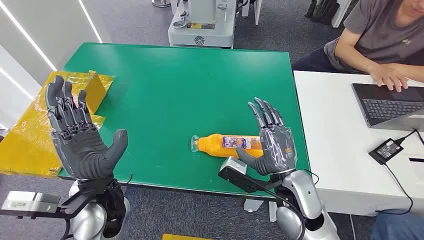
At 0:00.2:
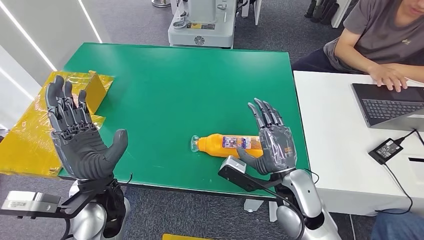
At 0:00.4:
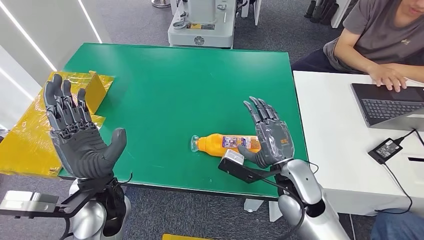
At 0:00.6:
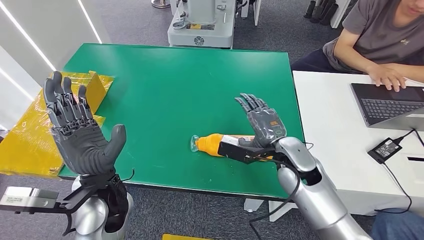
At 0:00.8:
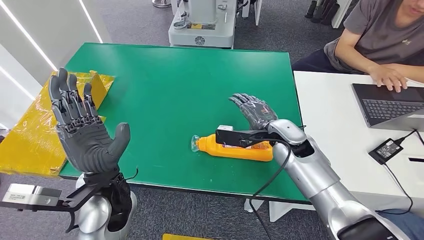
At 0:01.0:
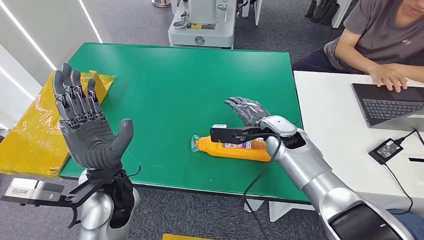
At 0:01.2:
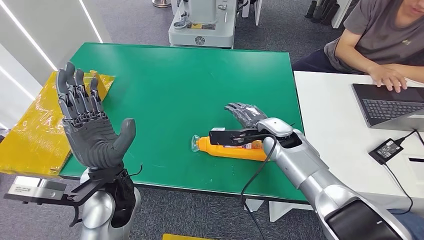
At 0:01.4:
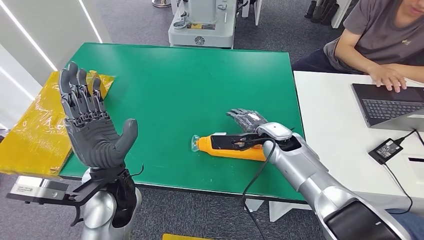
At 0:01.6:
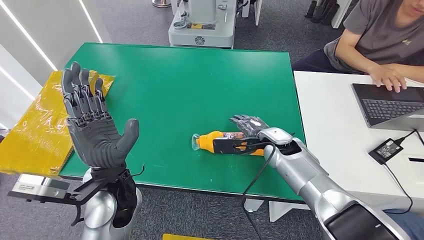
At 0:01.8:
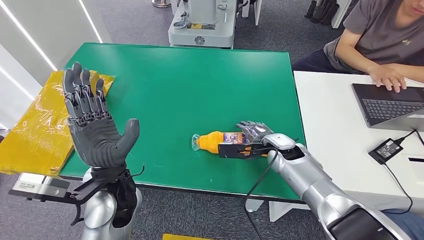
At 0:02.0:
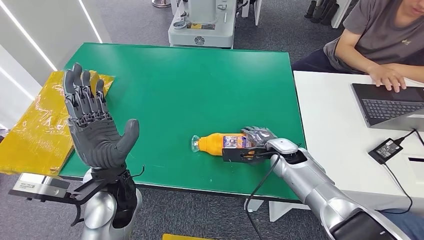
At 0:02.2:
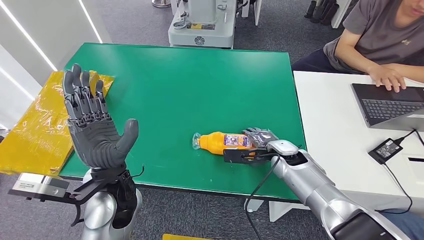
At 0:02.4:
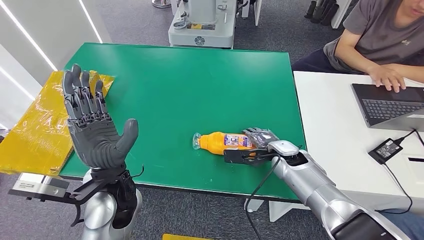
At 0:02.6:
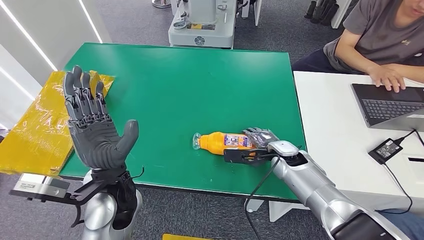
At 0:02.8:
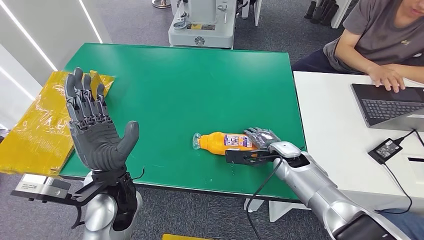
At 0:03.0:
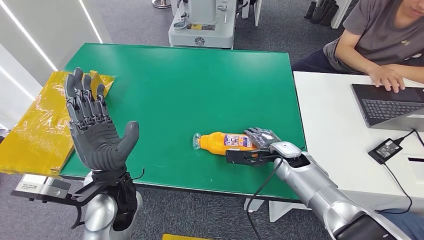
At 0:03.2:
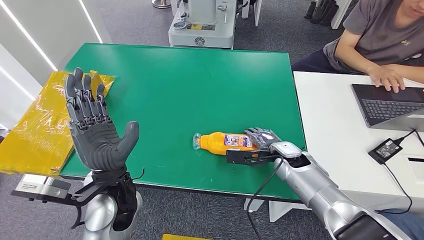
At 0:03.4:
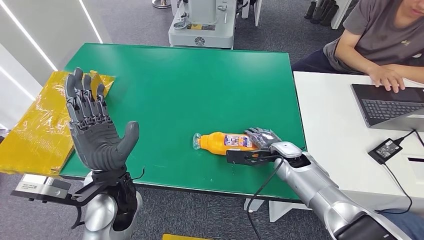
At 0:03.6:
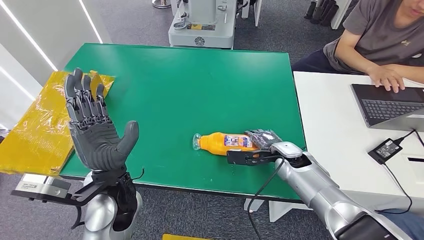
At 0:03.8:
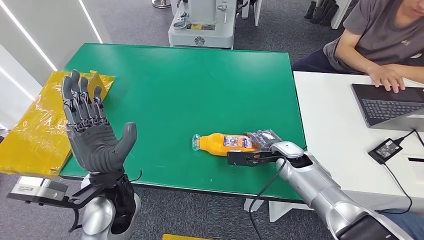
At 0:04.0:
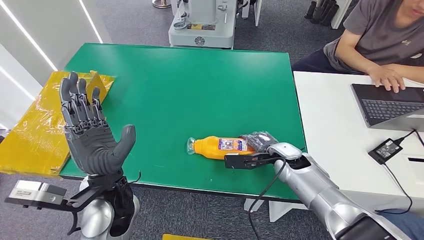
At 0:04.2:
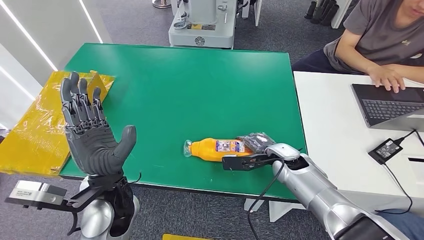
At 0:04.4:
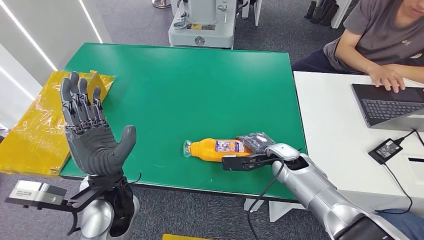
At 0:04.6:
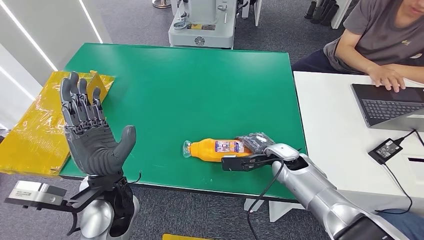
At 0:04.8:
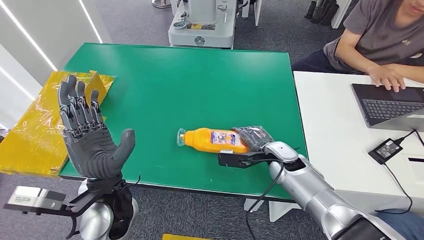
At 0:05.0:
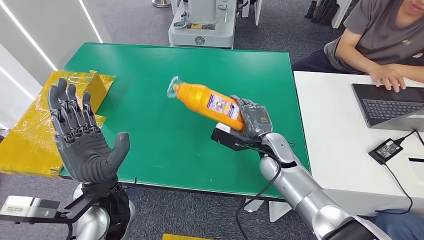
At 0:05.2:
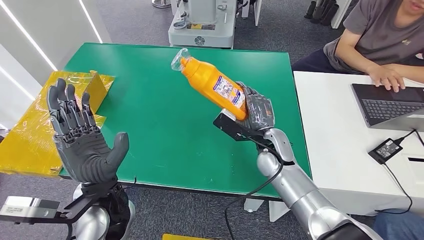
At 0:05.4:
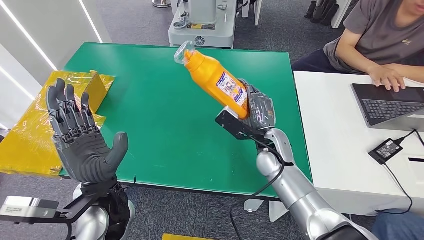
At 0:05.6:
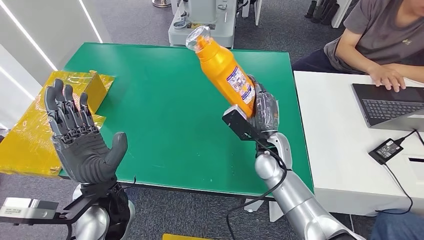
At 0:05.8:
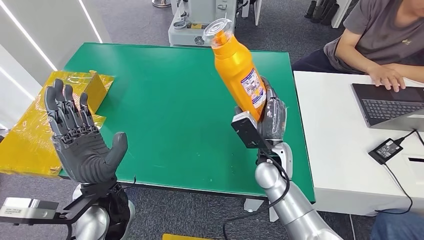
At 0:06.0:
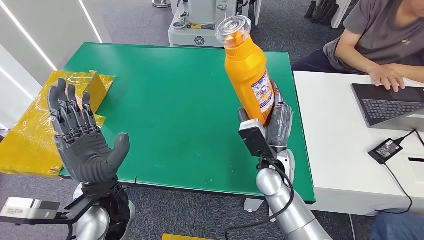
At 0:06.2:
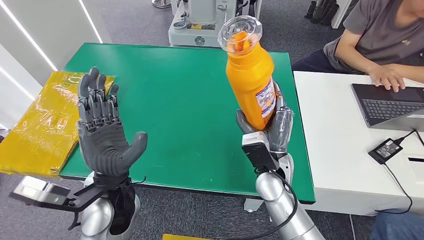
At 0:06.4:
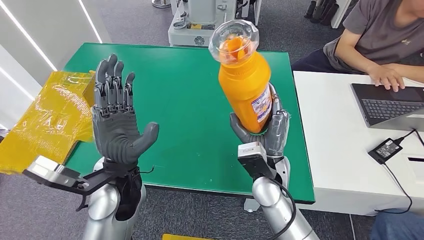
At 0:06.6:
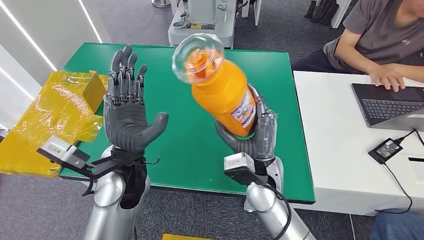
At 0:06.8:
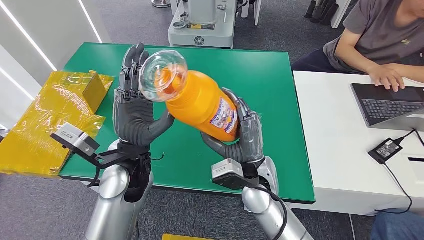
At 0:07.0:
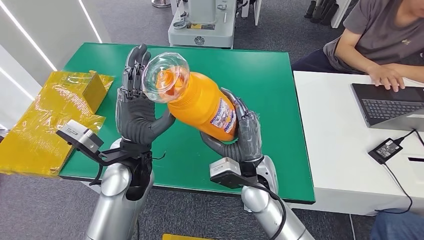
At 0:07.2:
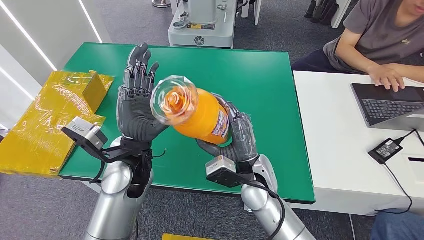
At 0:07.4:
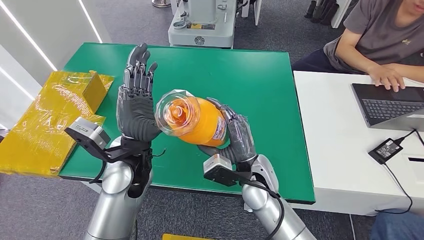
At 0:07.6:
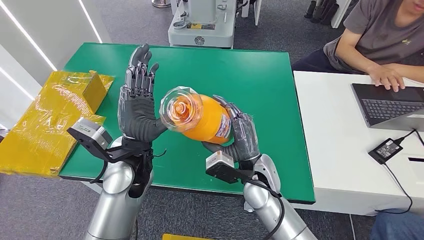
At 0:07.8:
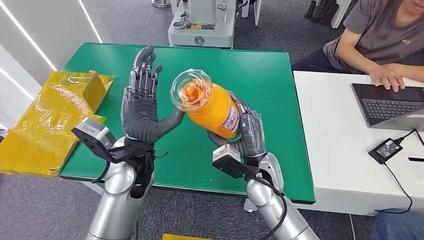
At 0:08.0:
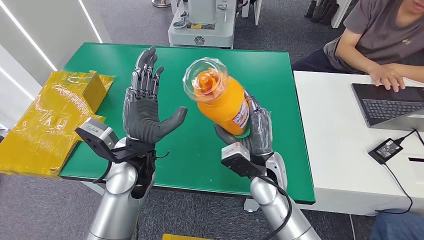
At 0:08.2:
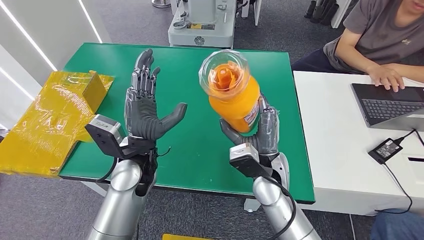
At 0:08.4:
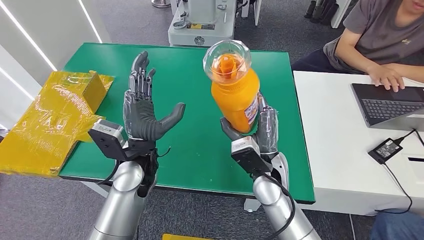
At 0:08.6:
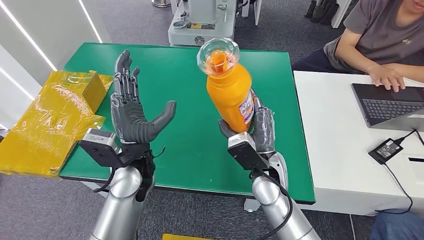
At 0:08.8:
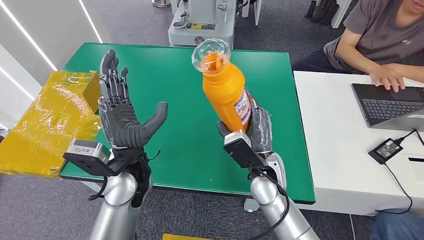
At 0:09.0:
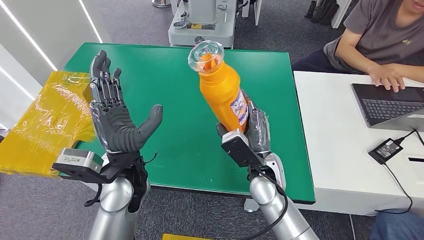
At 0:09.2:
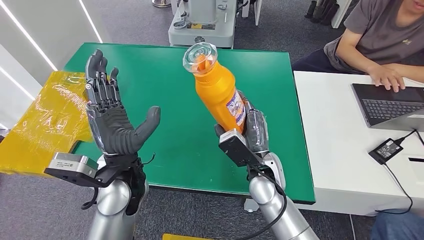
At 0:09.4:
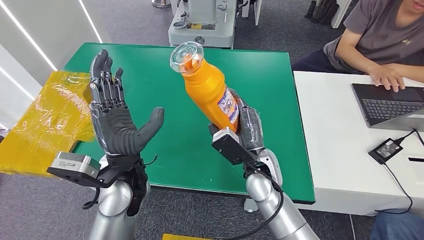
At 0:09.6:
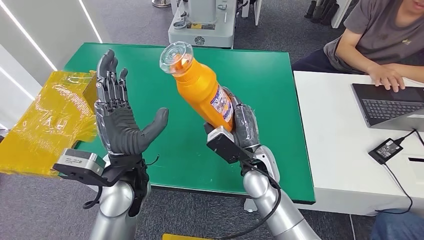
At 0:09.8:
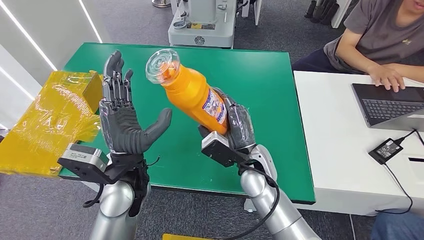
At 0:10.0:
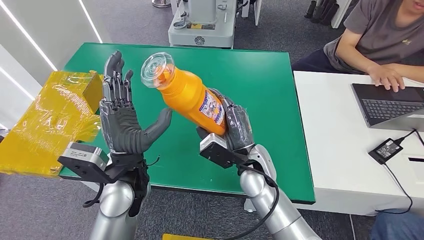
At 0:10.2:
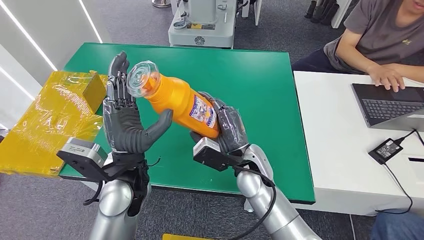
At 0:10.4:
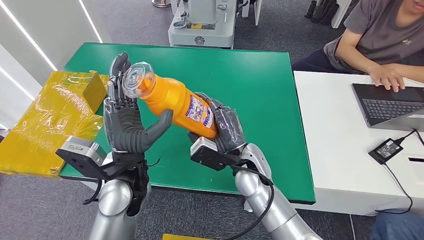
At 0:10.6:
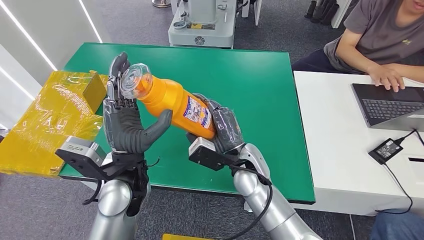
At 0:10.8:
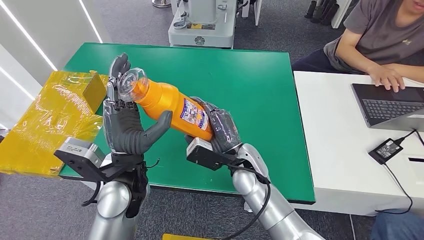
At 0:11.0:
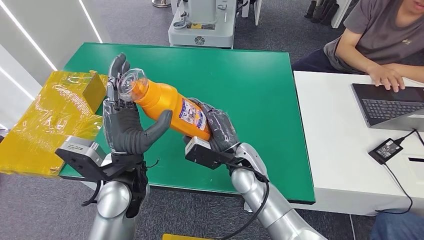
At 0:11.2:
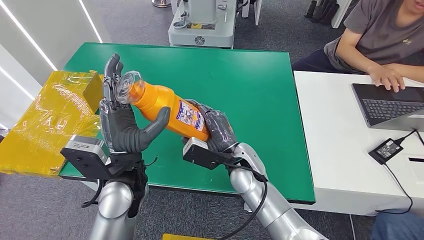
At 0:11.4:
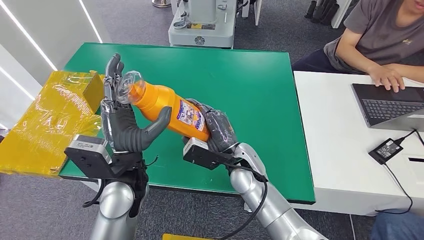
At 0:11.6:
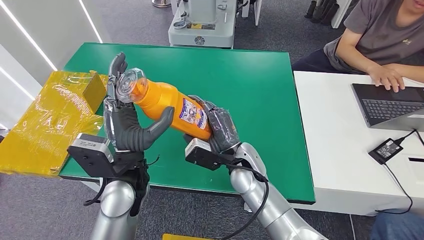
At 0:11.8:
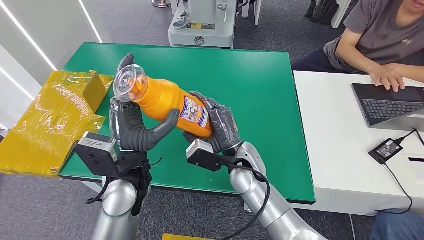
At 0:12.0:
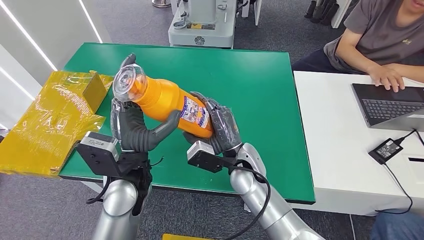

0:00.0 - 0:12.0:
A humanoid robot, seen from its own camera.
Step, 0:00.0 - 0:05.6: Pick up the bottle from the table.
0:01.6 - 0:03.0: The right hand moves some 5 cm.
0:03.0 - 0:04.4: The hands move only a little.
0:07.6 - 0:12.0: The hands stay close to where they were, moving slightly.

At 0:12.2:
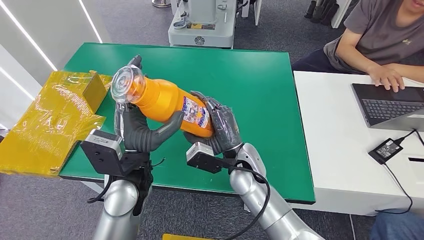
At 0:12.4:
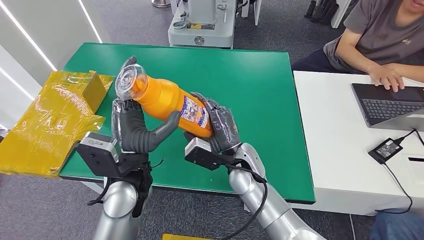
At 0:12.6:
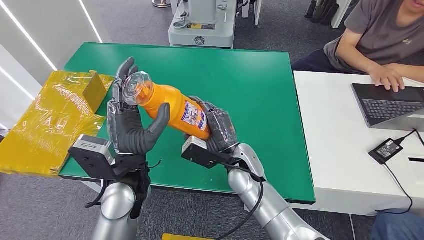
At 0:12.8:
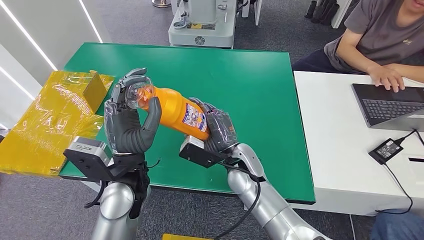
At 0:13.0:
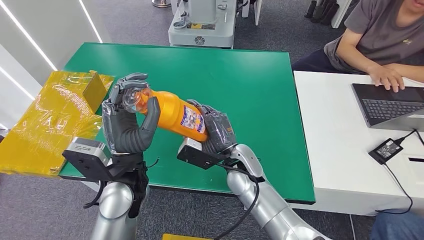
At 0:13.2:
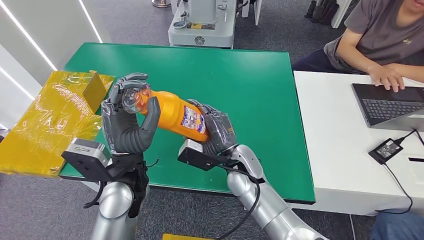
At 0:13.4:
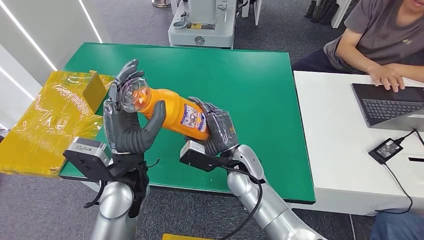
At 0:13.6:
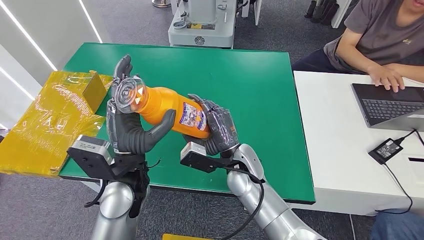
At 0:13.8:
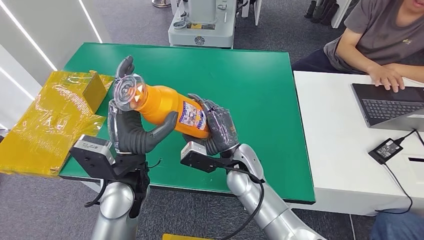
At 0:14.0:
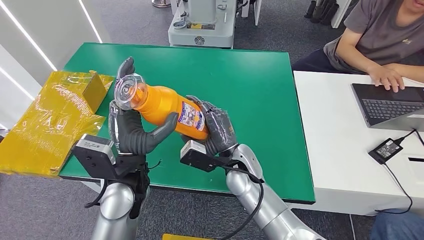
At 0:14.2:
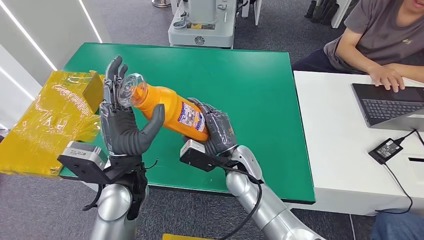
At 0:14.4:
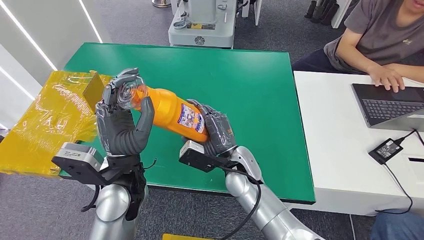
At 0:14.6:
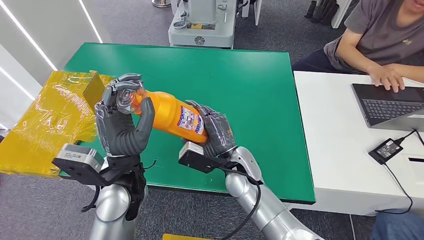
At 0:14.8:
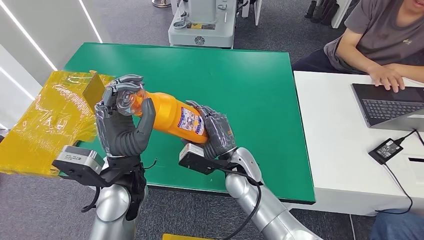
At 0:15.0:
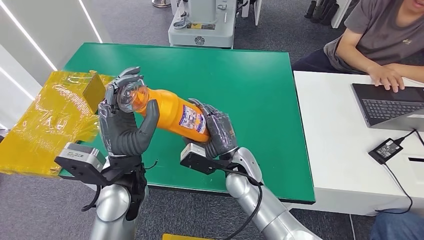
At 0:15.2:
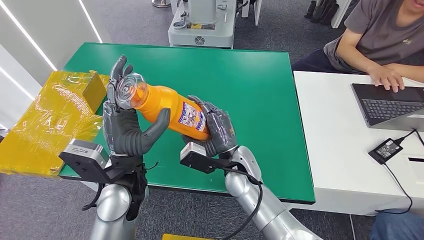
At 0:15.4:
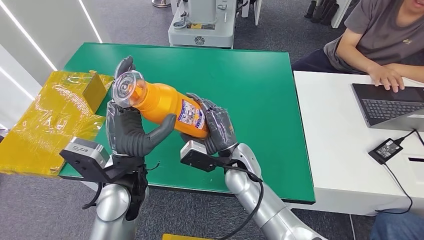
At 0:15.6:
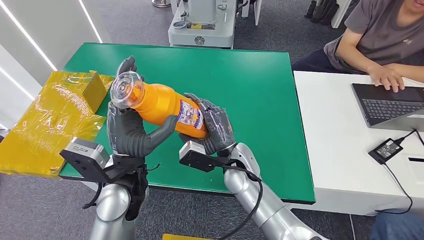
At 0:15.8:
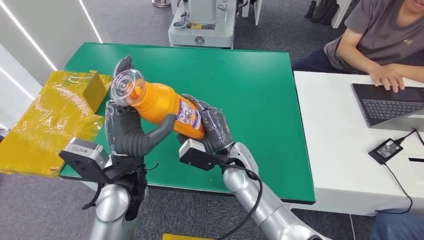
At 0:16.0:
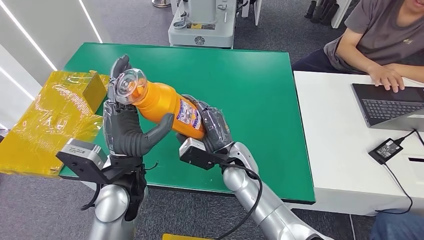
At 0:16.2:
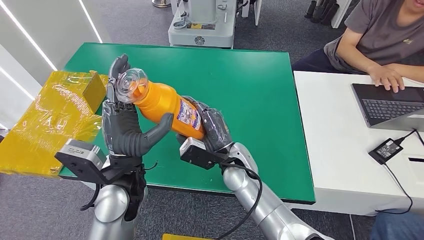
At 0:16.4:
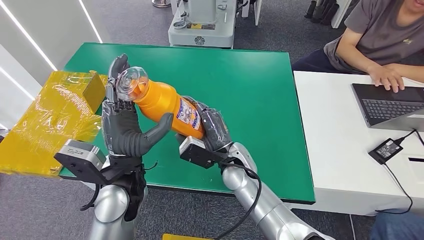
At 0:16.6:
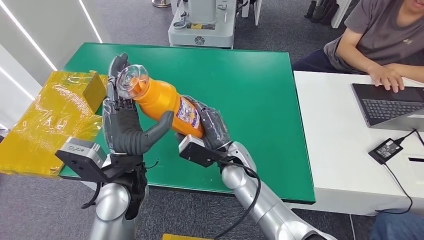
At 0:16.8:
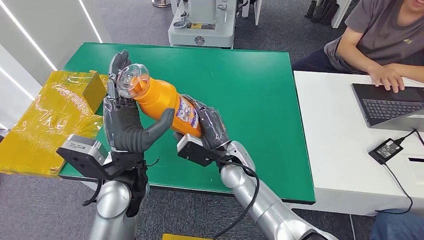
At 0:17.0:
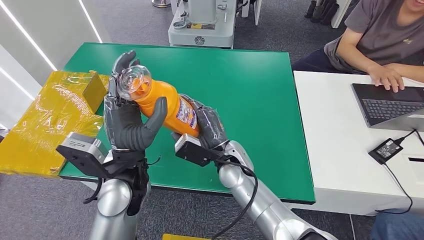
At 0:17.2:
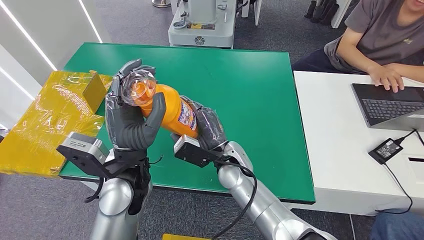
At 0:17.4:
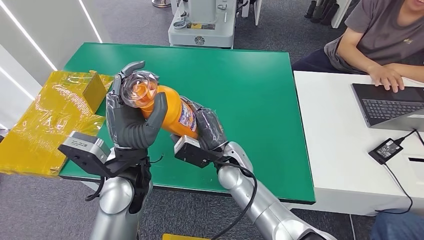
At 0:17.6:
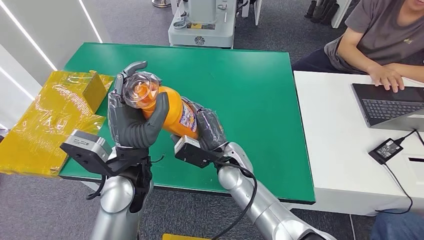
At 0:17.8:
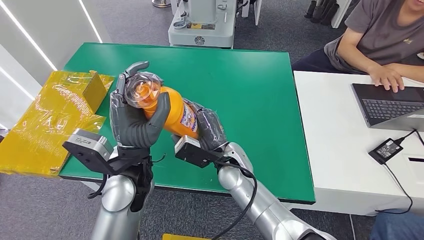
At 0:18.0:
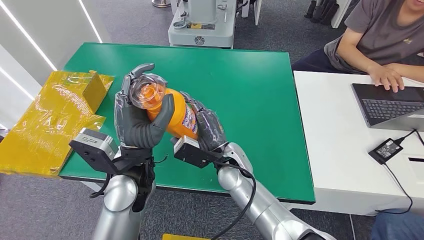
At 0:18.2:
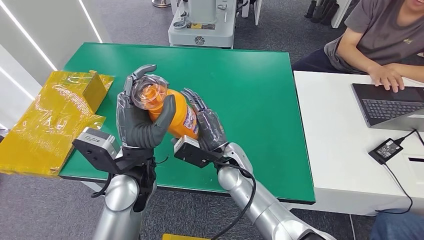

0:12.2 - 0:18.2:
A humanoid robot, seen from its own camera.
0:12.2 - 0:18.2: The hands make only small movements.
